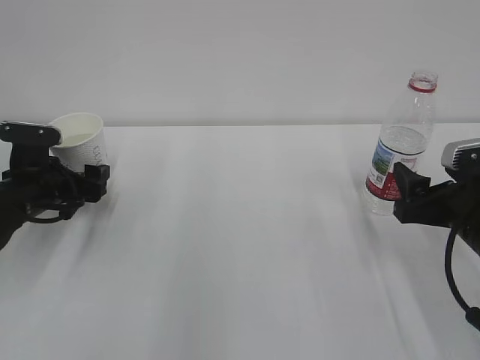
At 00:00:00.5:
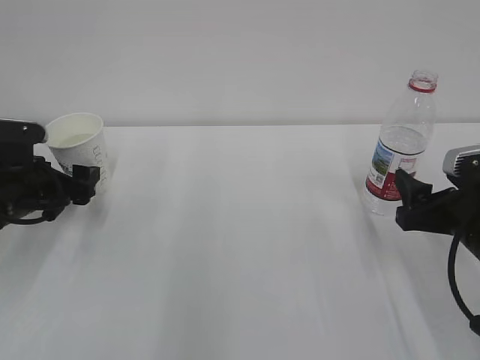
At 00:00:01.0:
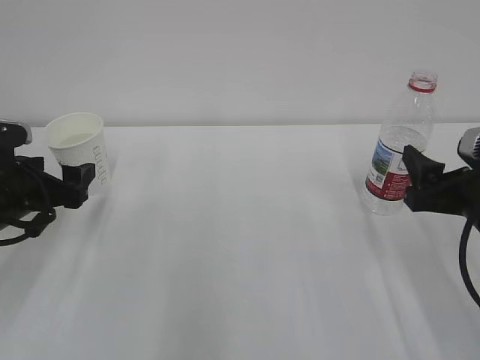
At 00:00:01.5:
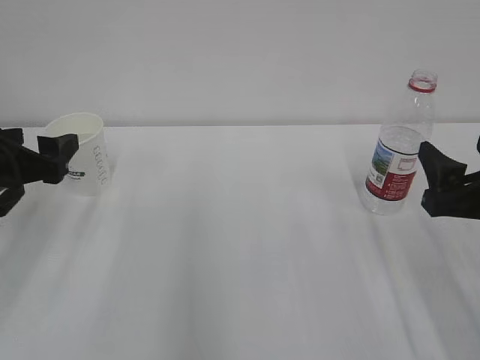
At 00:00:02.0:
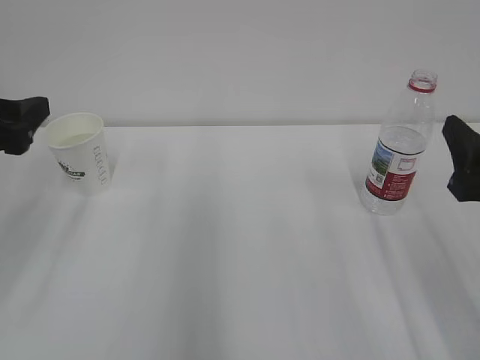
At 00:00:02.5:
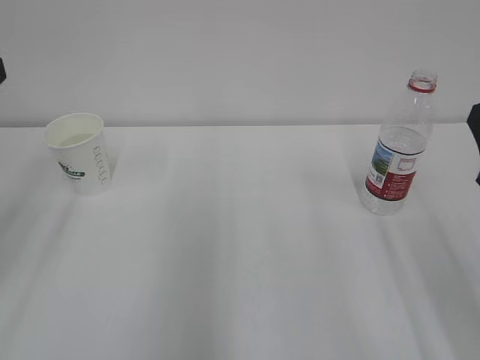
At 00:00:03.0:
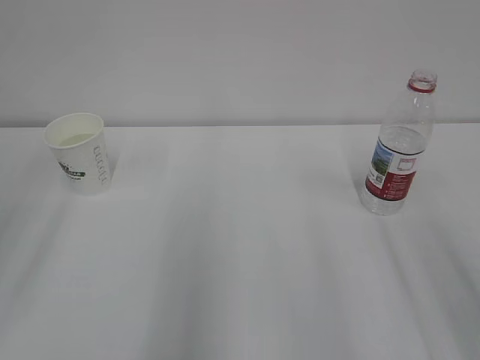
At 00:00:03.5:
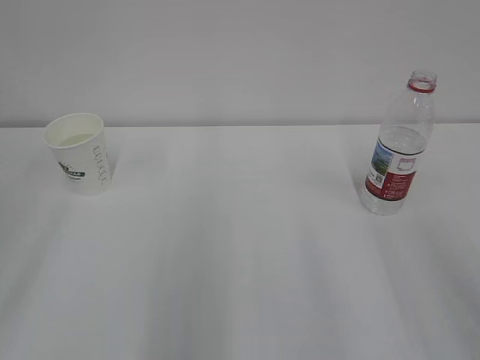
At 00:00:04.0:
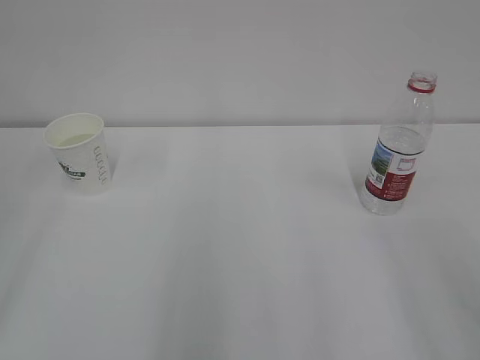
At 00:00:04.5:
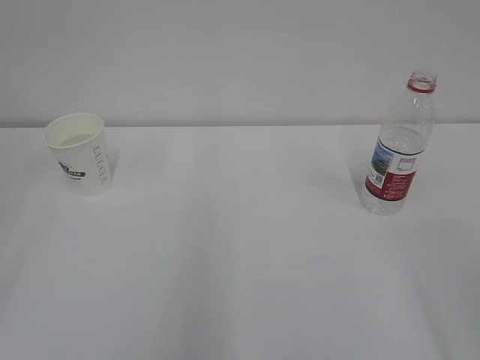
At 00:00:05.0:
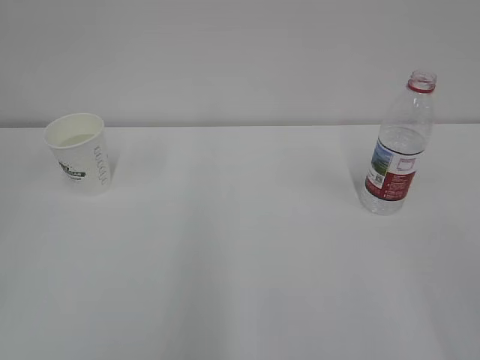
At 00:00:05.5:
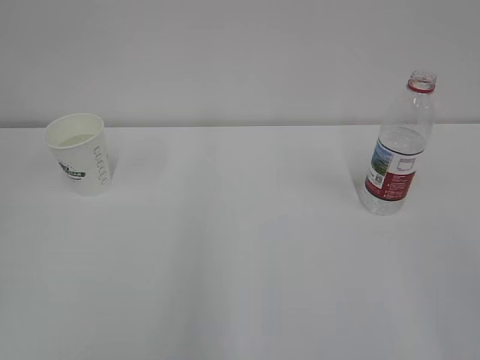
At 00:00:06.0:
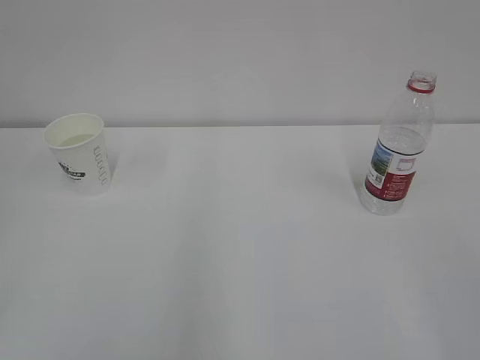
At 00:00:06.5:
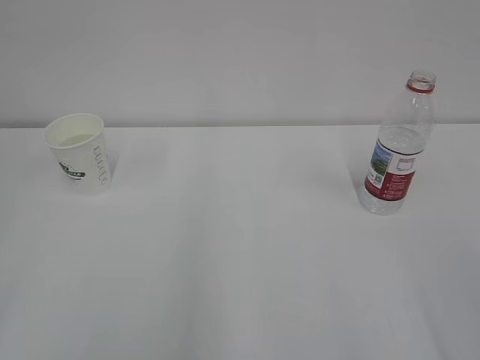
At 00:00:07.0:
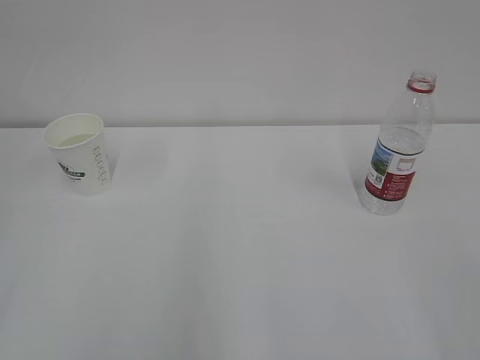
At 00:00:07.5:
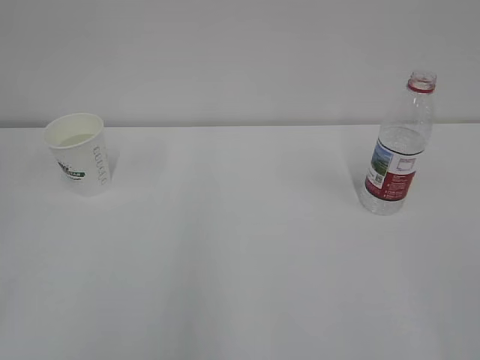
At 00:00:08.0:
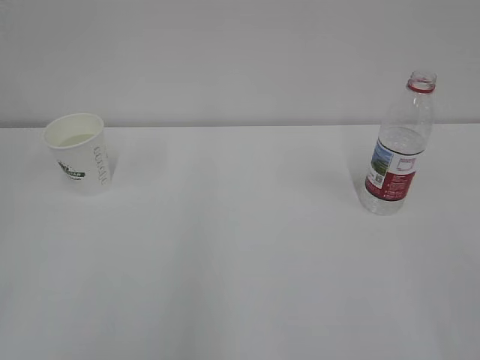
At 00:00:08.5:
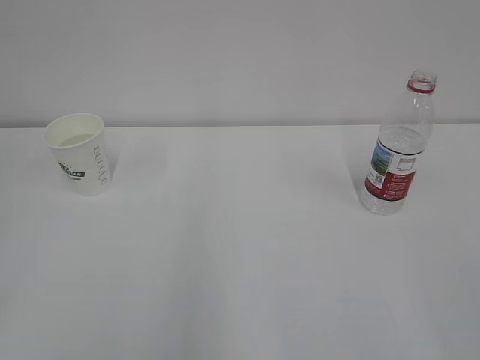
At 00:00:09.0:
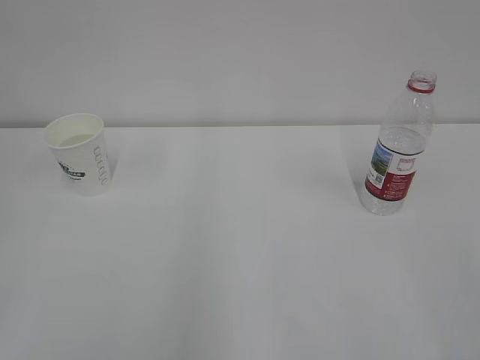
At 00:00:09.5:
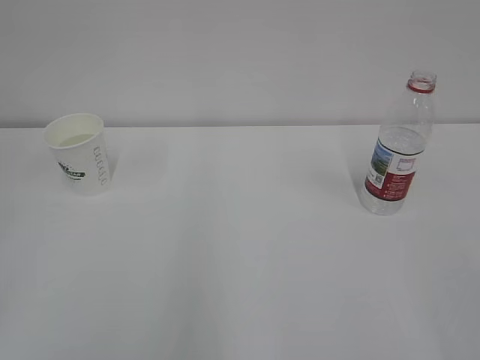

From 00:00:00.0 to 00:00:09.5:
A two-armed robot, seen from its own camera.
From 00:00:00.0 to 00:00:02.0: The right gripper is displaced upward by some 5 cm, while the left gripper goes roughly 20 cm upward and backward.
From 00:00:02.0 to 00:00:04.0: The grippers both shift backward and upward by approximately 15 cm.
From 00:00:07.5 to 00:00:09.5: Neither gripper changes place.
